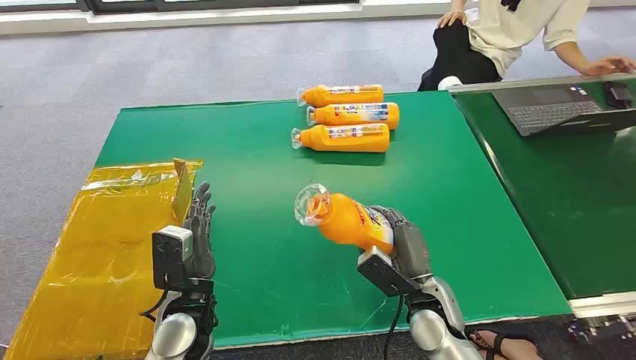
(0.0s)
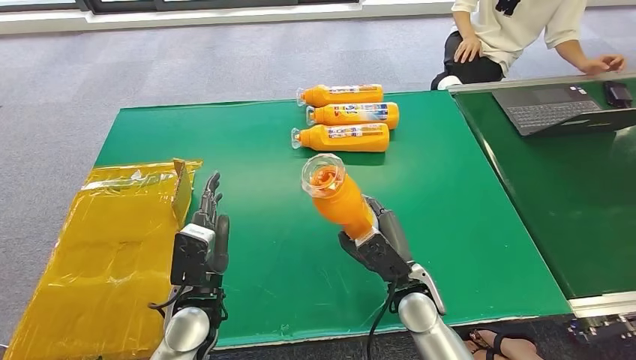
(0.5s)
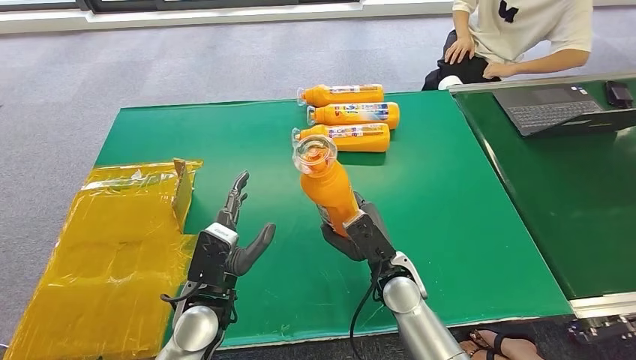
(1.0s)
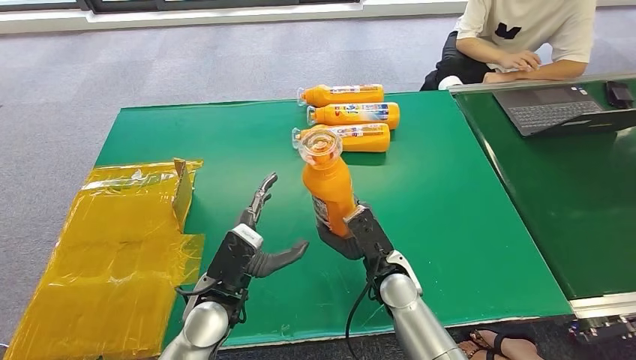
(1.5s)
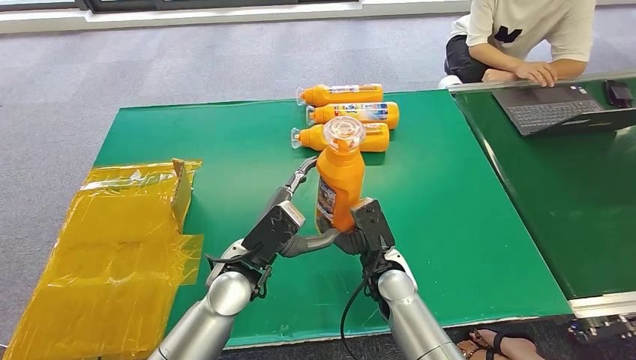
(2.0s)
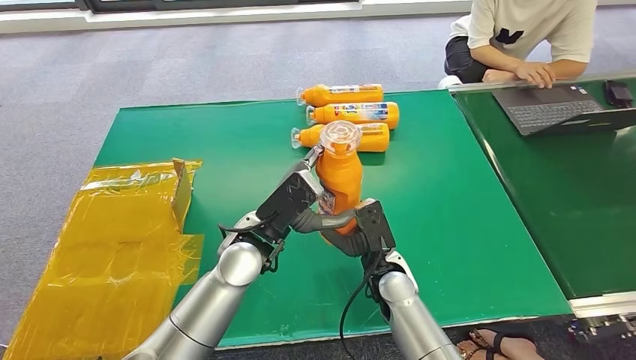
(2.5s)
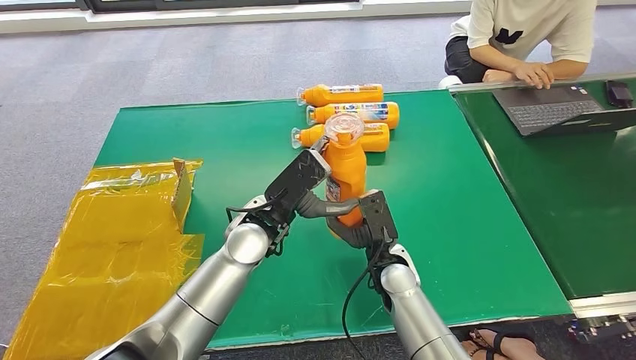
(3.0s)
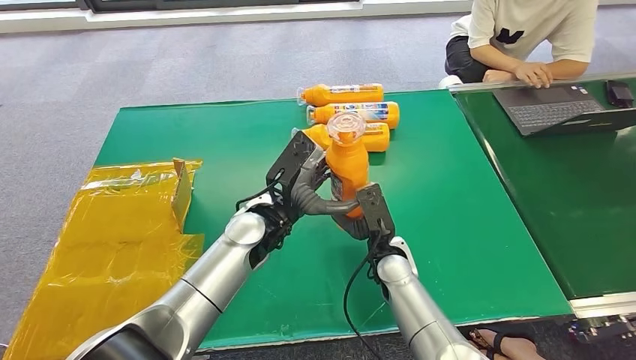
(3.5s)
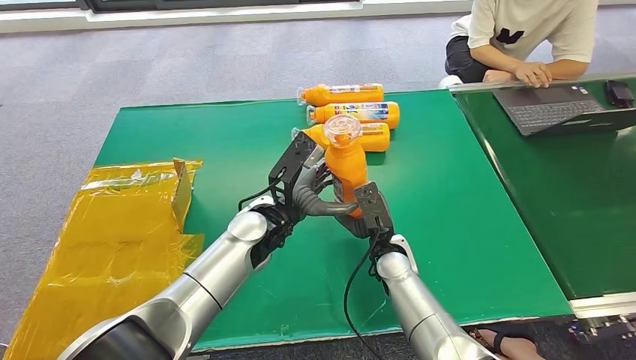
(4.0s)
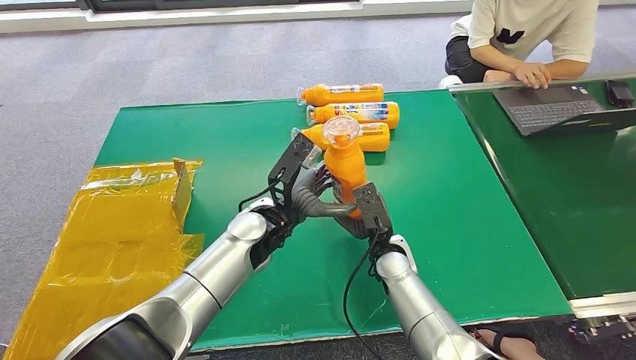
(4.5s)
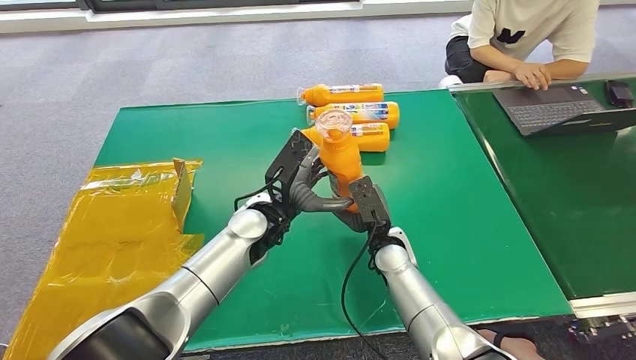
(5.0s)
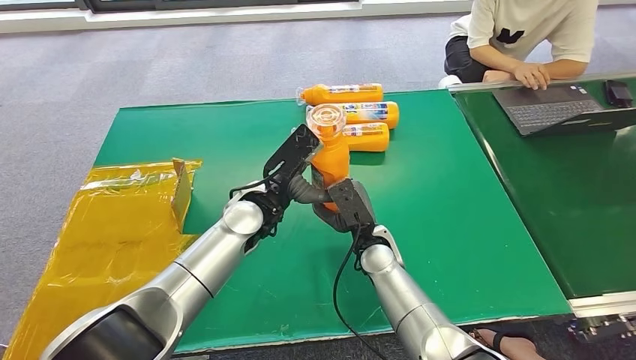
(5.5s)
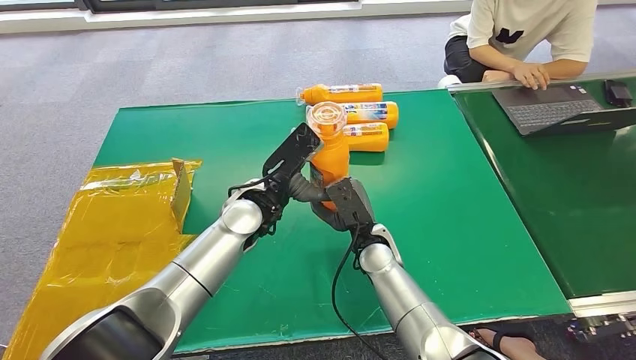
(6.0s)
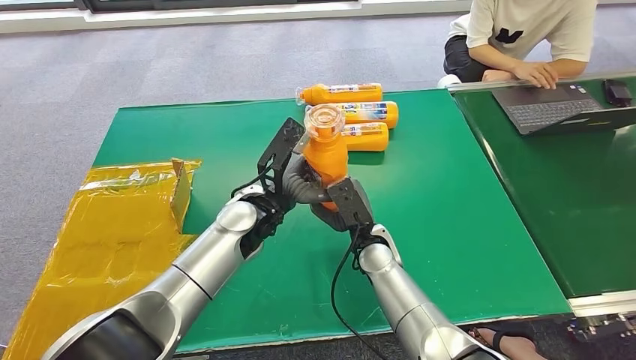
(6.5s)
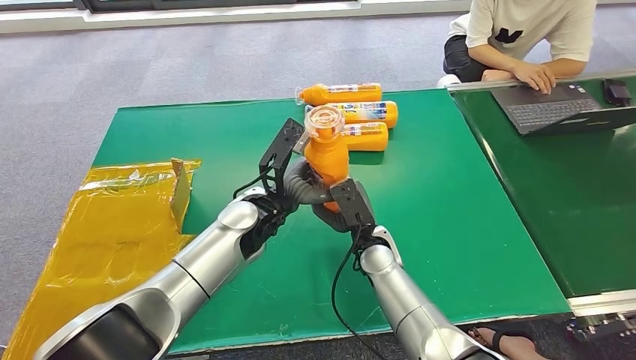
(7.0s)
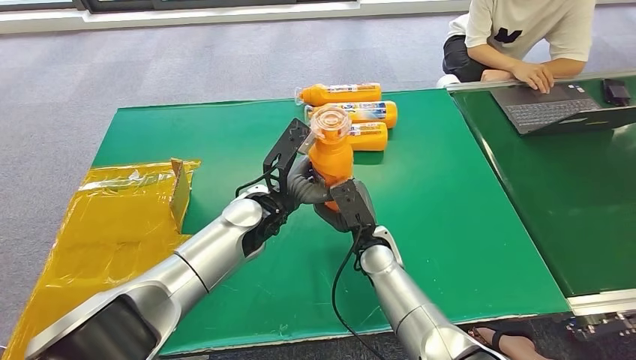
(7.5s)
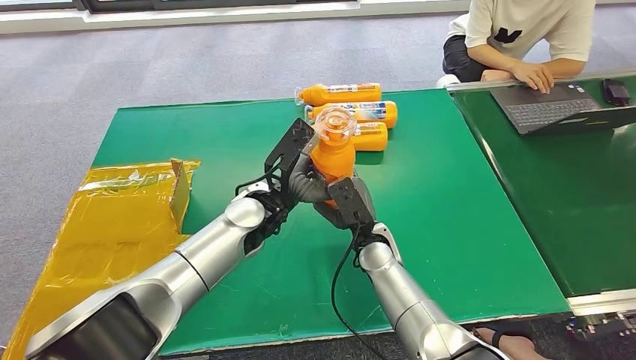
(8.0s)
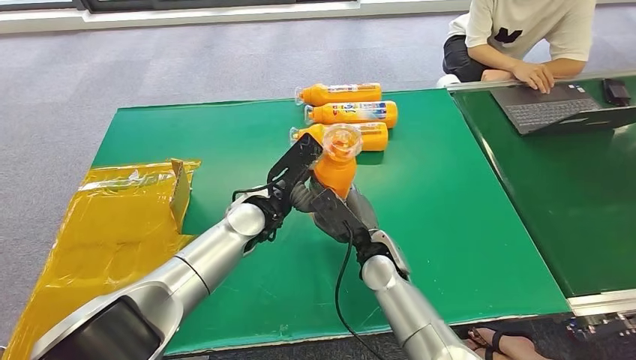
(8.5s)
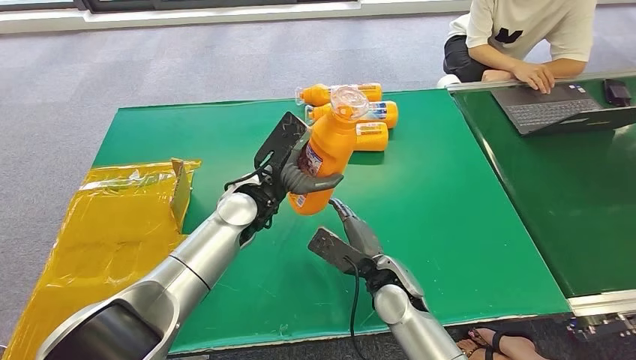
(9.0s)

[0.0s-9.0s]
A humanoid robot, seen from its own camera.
Step, 0.0s to 0.5s: Pick up the bottle from the table.
2.0s to 4.5s: The left hand shifts approximately 5 cm forward.
7.0s to 9.0s: The right hand heads backward, covering about 5 cm.

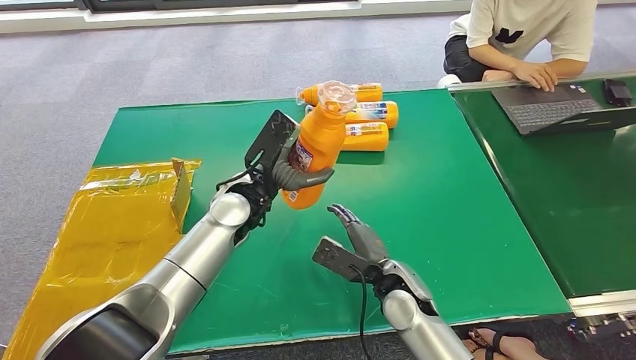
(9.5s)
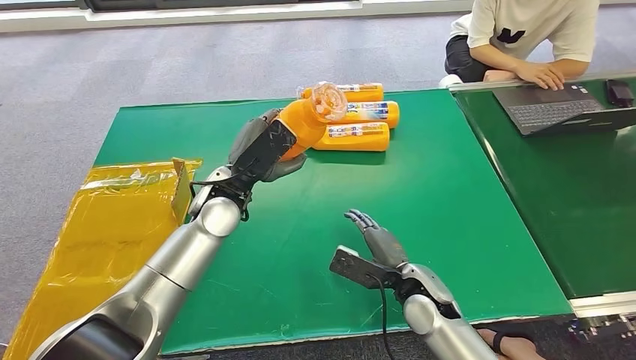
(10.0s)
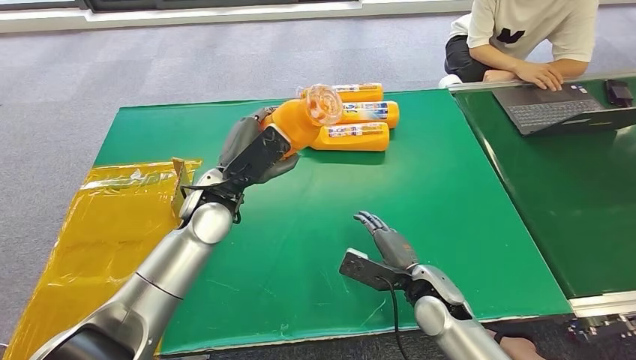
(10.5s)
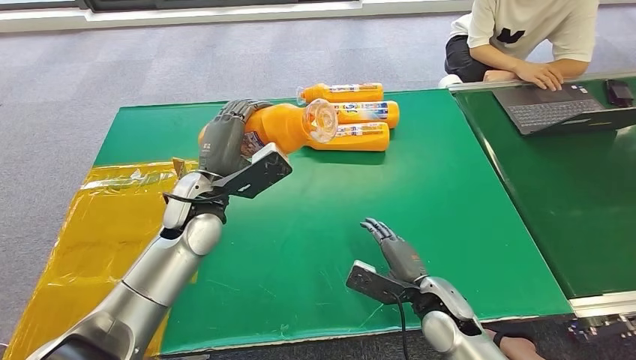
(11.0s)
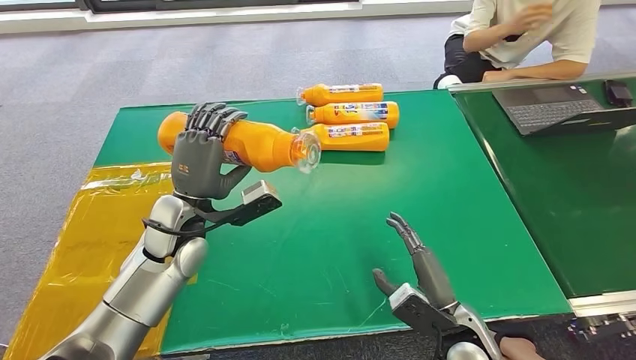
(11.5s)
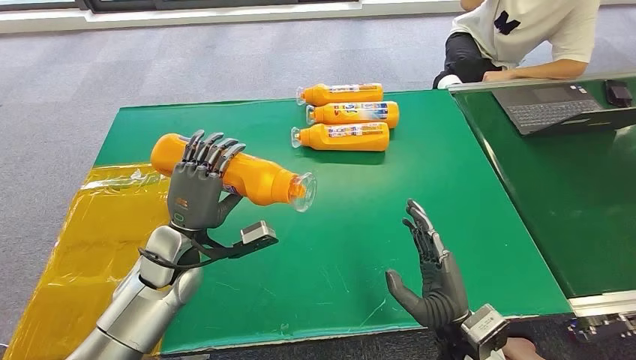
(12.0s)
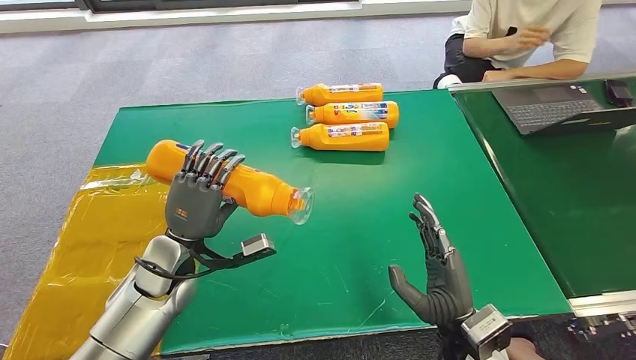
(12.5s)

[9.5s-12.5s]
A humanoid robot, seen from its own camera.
Step, 9.5s to 12.5s: Turn the bottle to the front side.
9.5s to 11.0s: The right hand moves to the right, about 5 cm; the left hand shifts roughly 5 cm to the left.
11.0s to 12.5s: The left hand shifts about 10 cm downward, to the left and backward. Meanwhile the right hand is displaced backward and upward by some 10 cm.
